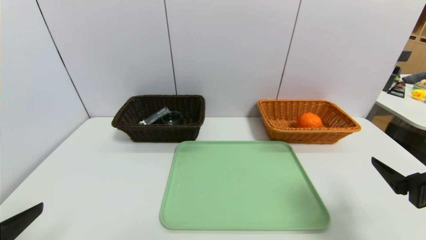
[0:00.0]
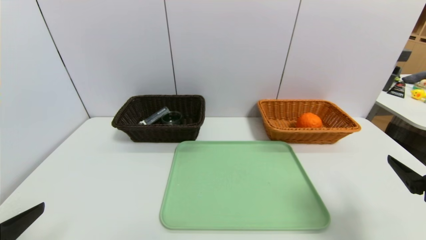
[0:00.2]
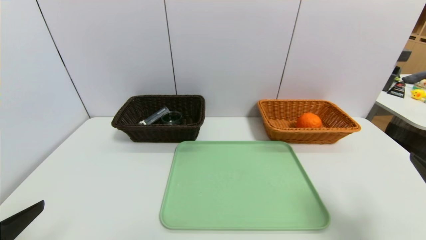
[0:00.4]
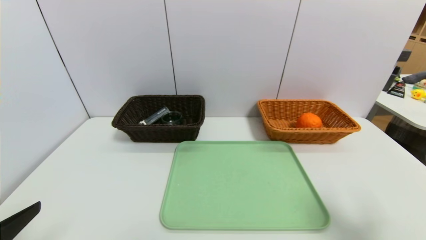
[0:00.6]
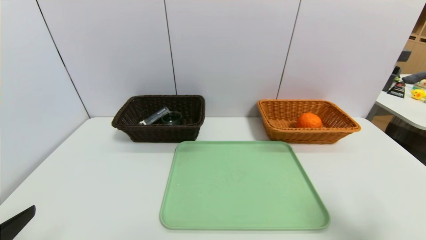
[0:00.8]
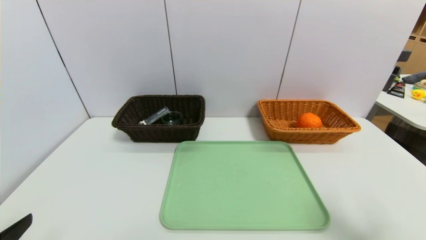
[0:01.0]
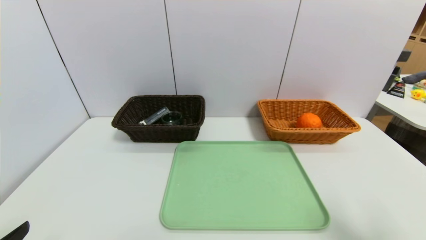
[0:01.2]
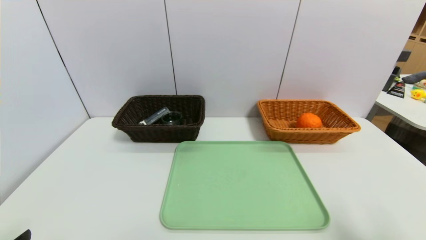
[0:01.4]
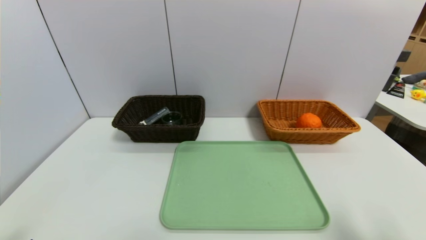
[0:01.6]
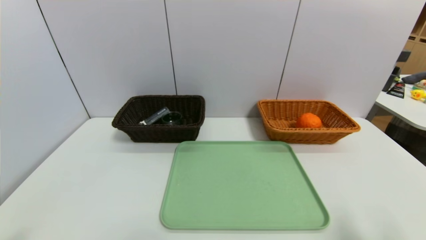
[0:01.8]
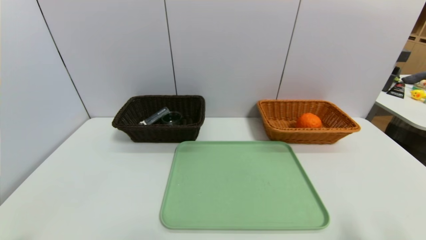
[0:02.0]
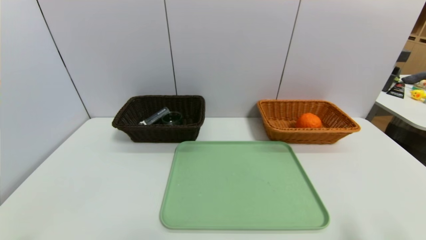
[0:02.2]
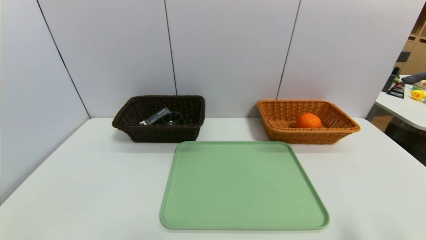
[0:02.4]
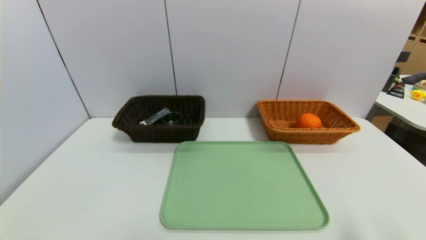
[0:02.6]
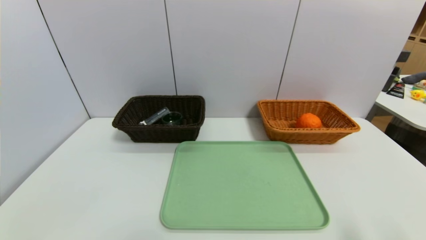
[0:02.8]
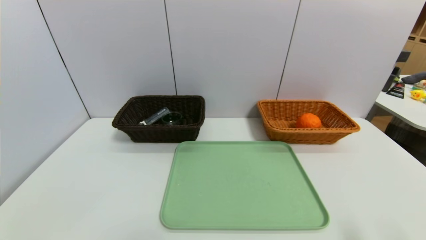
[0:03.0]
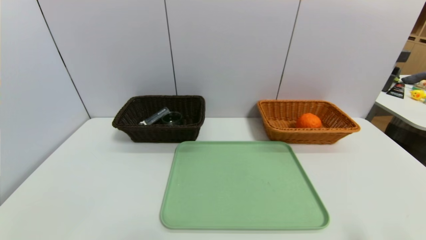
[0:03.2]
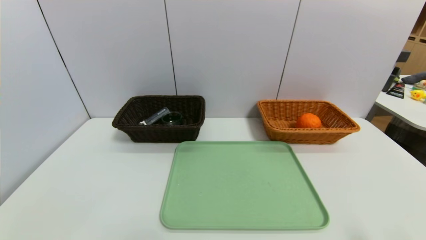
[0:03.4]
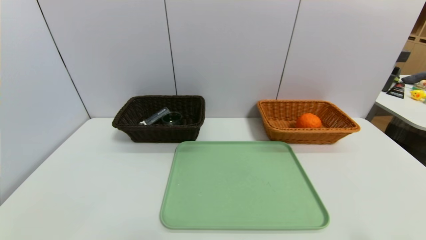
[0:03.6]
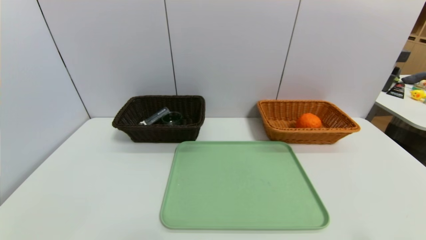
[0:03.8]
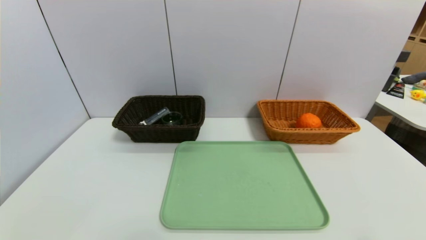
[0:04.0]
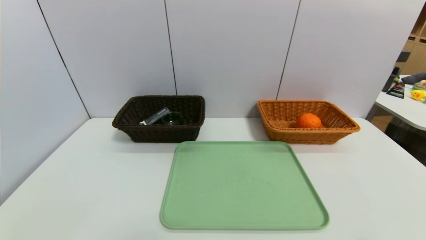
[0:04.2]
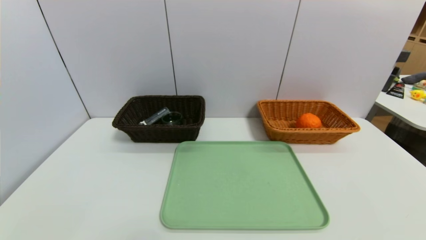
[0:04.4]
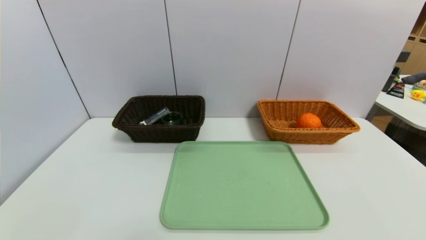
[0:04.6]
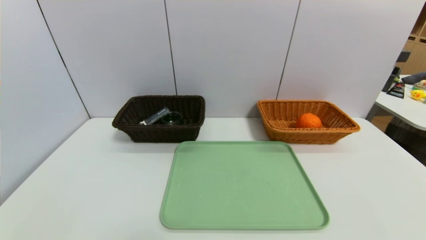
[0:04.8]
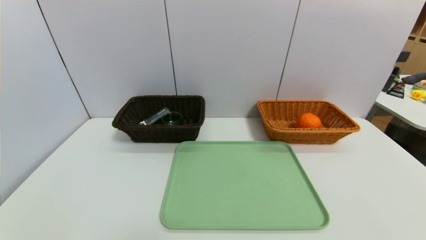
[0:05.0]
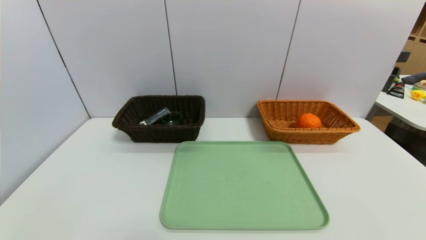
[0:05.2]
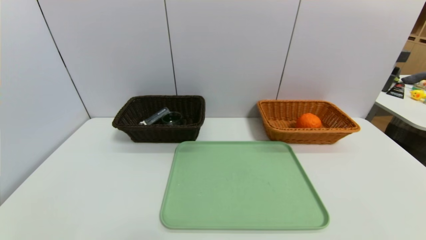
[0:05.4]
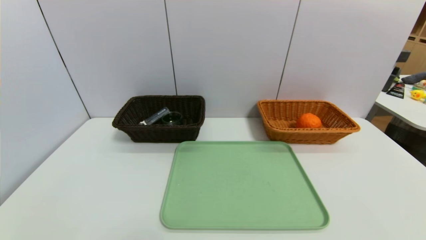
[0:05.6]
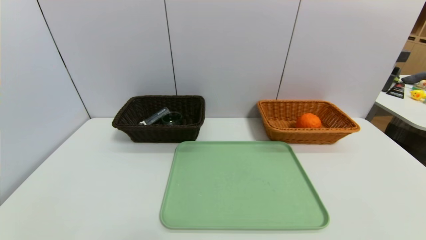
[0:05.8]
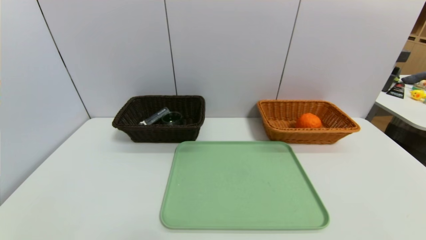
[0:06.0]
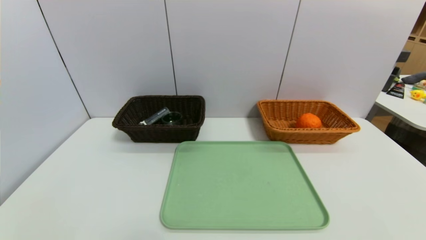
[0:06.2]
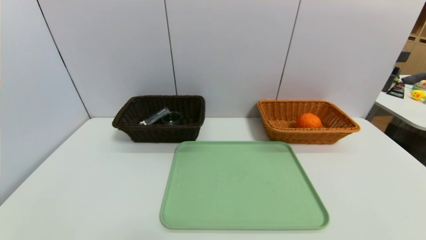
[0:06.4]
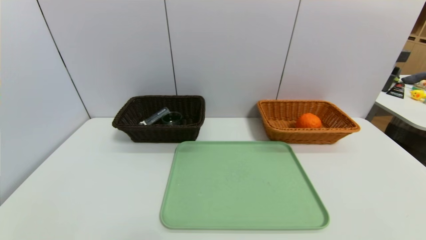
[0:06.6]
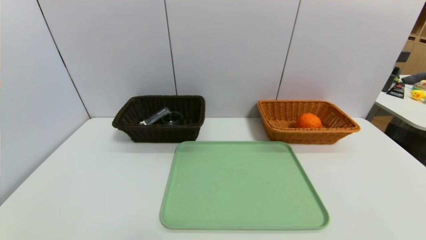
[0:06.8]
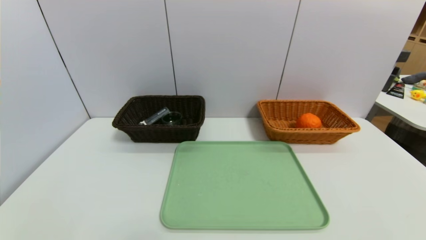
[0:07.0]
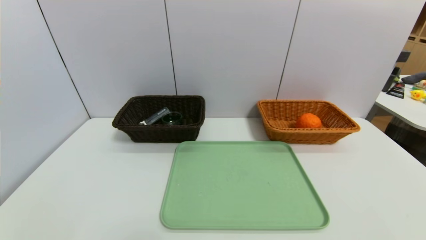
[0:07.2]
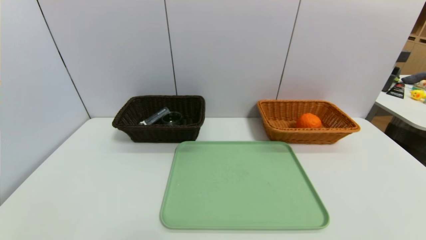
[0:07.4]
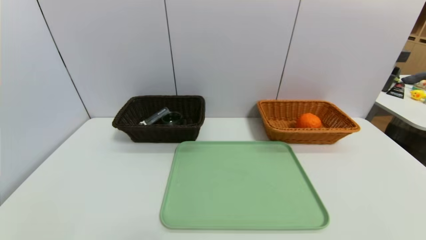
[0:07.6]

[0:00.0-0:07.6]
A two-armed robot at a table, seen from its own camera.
Task of the whole recording: place the food in the right basket with the right gripper, and place the non food items in the left basket with the left gripper.
0:00.0 to 0:01.6: The left gripper shifts by about 5 cm; the right gripper moves backward, some 5 cm.

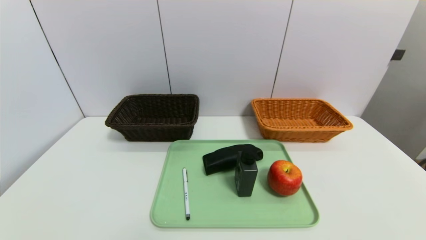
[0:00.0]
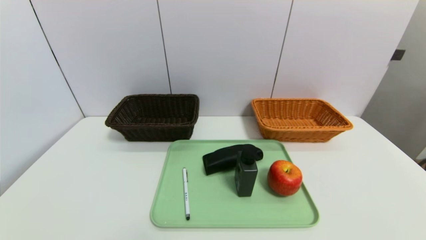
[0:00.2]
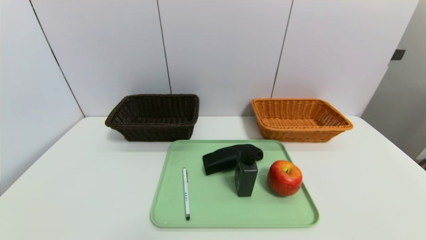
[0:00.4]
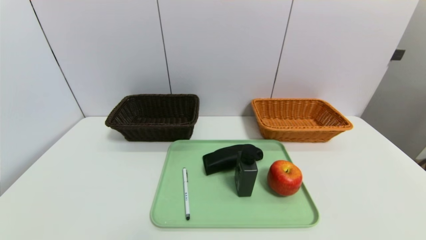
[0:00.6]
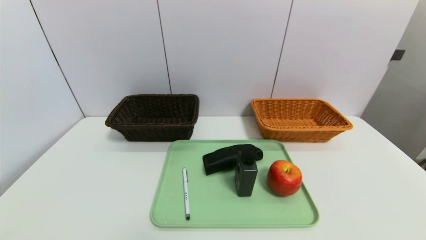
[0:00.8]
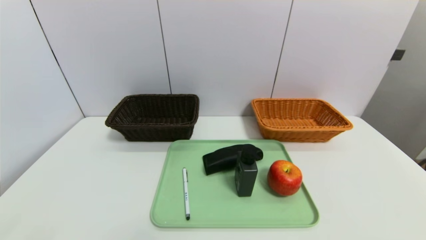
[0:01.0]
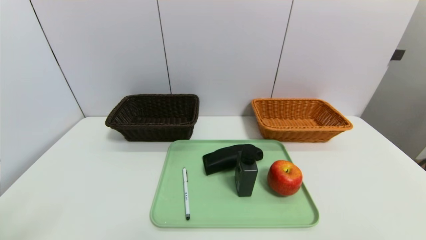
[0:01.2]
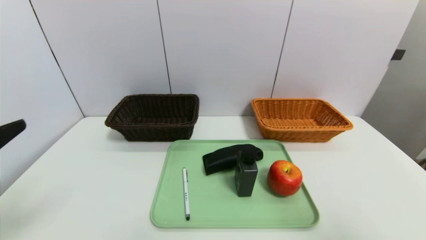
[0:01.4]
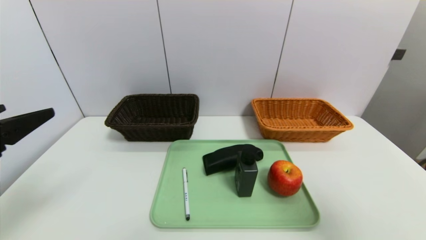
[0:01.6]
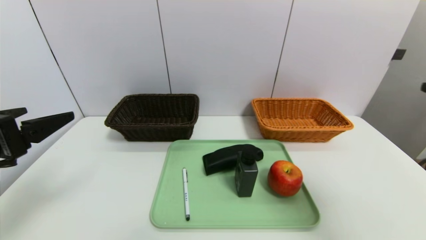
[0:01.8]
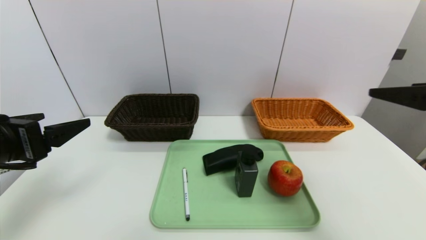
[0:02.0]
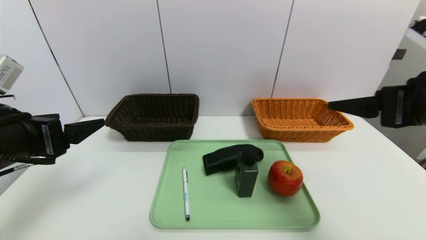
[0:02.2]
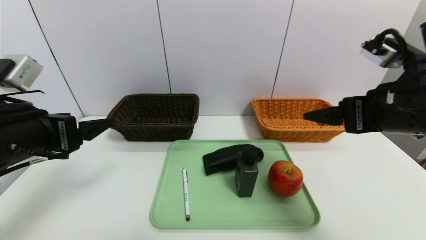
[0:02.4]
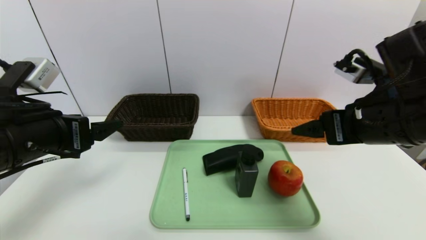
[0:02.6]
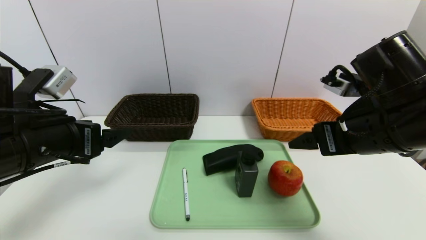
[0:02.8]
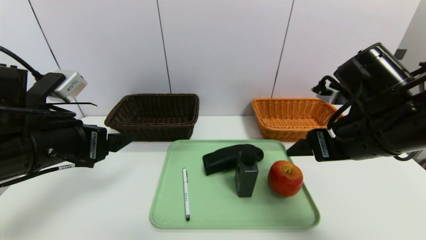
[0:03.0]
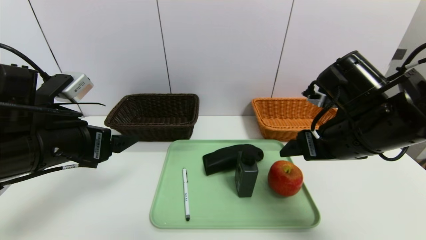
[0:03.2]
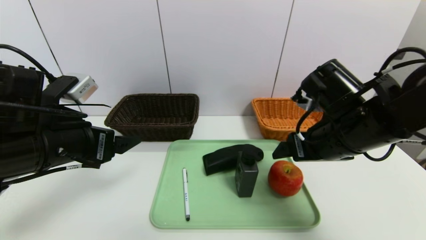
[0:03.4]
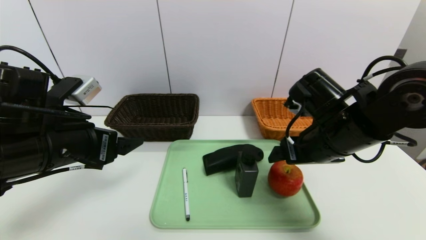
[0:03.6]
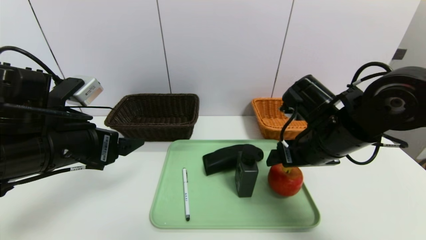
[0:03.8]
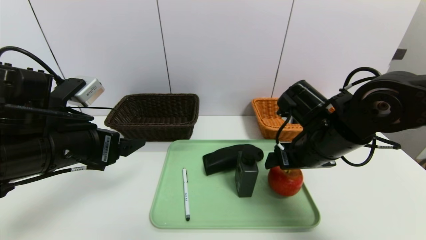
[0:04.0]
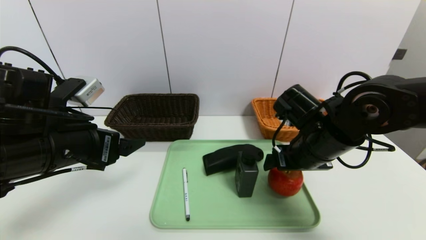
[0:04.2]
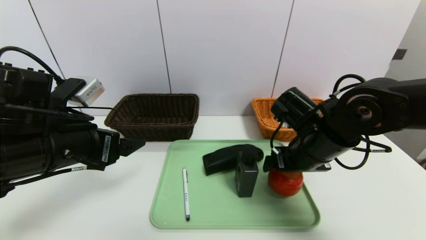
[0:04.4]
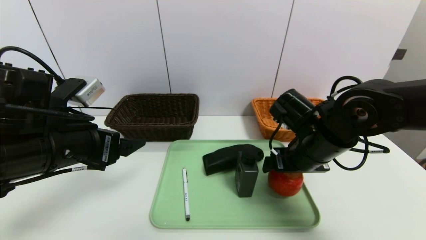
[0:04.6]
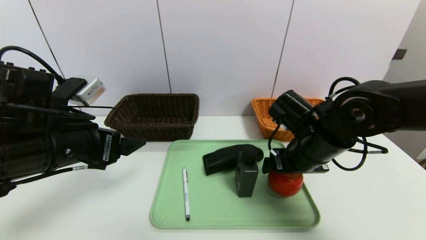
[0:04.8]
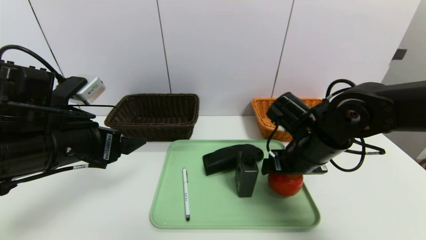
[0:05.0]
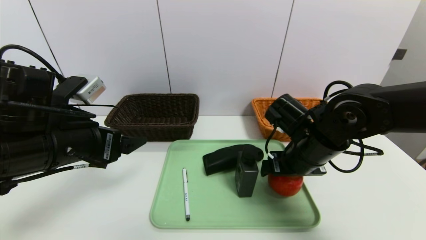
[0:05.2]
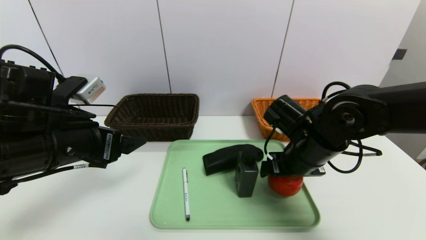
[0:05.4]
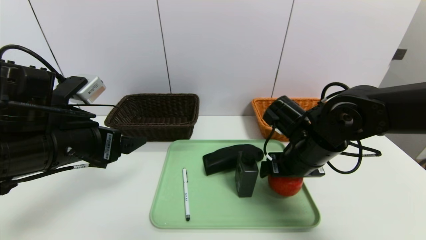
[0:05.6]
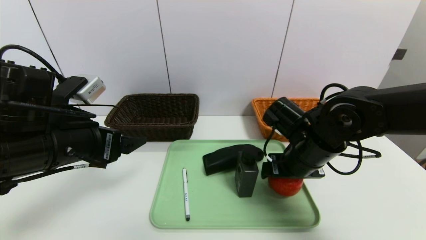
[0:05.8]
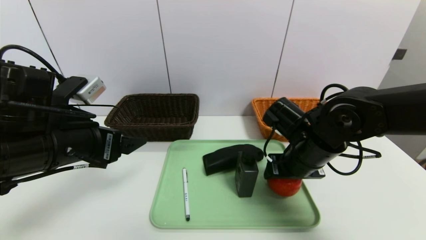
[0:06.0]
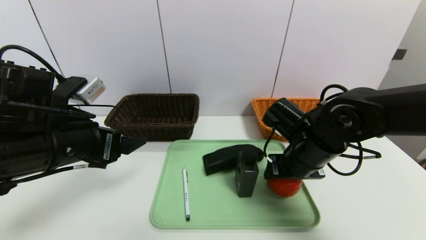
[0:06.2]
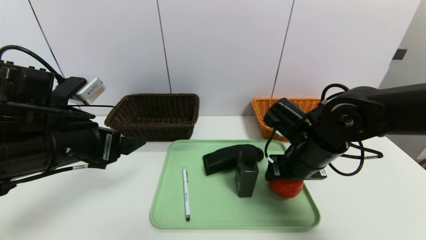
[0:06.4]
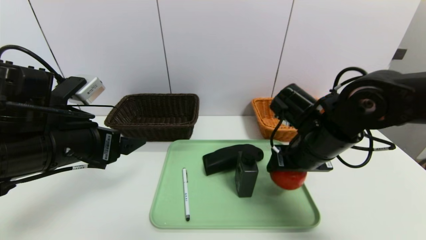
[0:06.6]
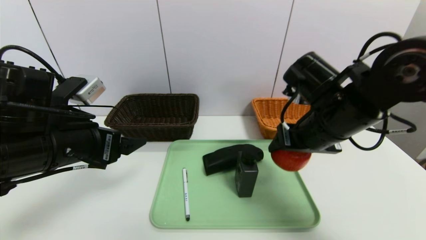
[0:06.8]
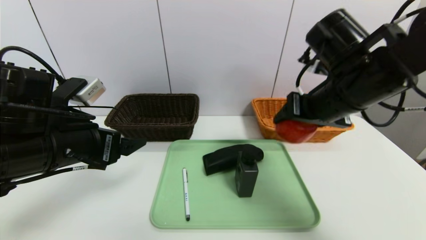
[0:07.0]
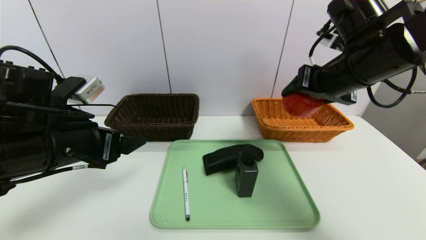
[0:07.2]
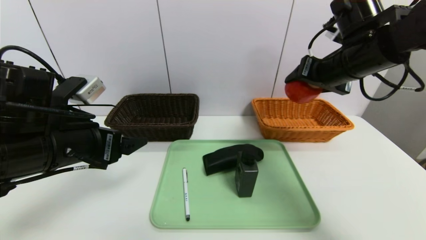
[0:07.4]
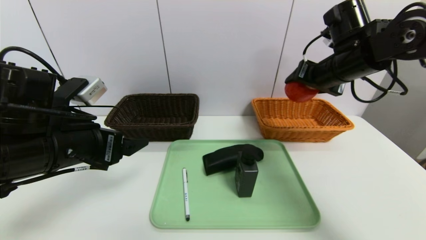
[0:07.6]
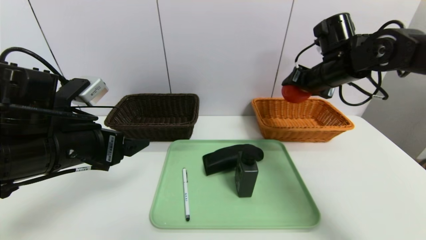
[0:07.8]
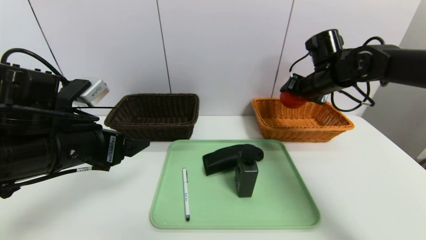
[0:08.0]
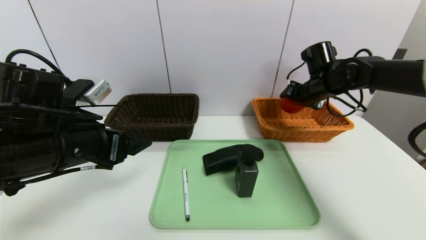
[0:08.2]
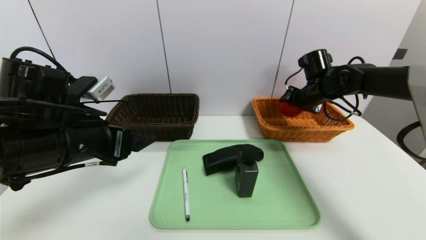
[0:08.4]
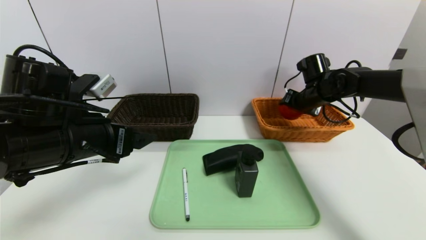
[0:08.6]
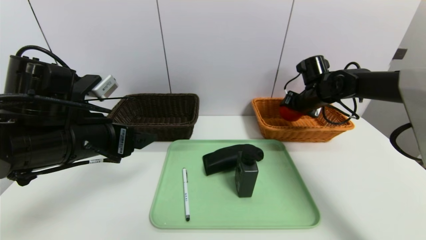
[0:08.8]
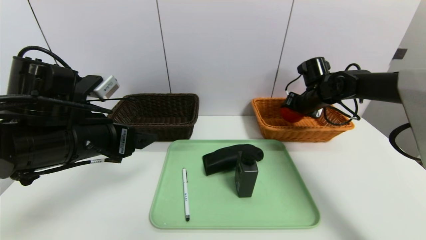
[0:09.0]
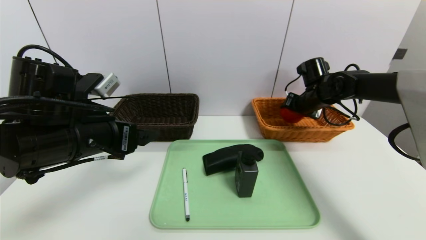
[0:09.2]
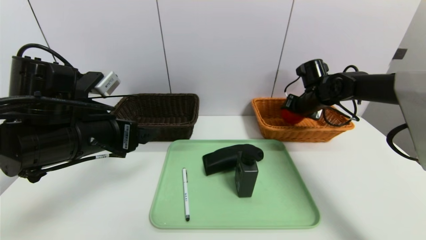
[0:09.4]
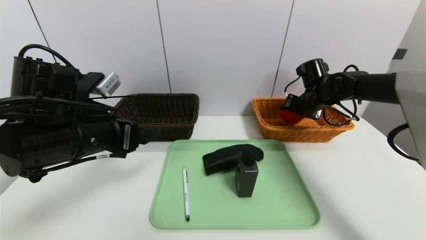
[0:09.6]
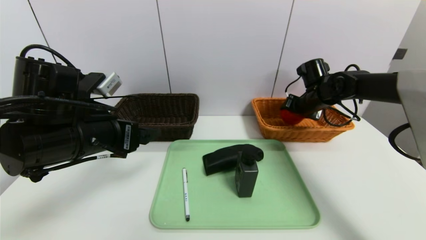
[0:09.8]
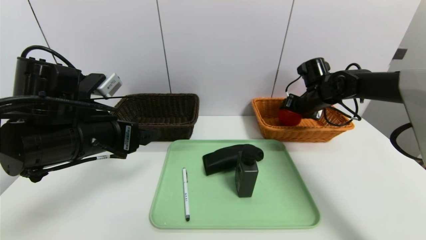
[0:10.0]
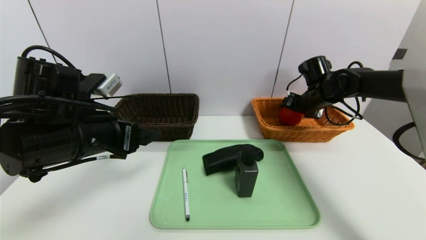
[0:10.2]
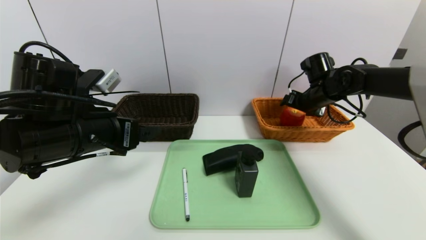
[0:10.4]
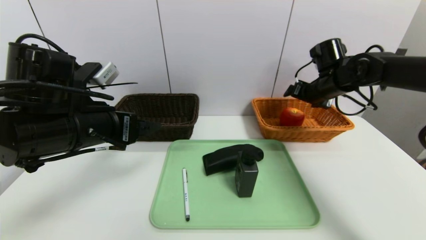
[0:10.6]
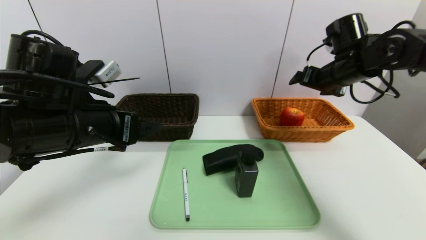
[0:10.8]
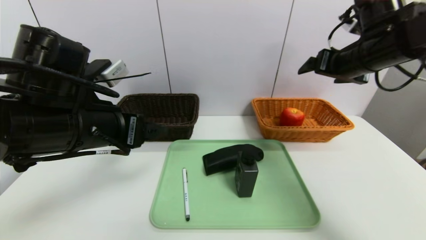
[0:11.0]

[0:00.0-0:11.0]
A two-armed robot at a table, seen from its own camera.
Task of the whole recording: place the food in the right basket with the right gripper, and place the non food items in the left basket with the left gripper.
Step, 0:00.0 to 0:10.6: Grasp the apple and put it in the right basket.
0:00.0 to 0:01.6: The left gripper moves upward and forward, about 25 cm. Meanwhile the right gripper travels upward by approximately 25 cm.
0:01.6 to 0:03.2: The right gripper travels forward, to the left and downward by about 25 cm. The left gripper heads forward and to the right, covering about 10 cm.
0:03.2 to 0:04.8: The right gripper travels downward by approximately 5 cm.
0:04.8 to 0:06.2: The right gripper closes.
0:06.2 to 0:07.8: The right gripper goes roughly 20 cm upward, forward and to the right.
0:07.8 to 0:09.4: The right gripper moves downward and forward, approximately 10 cm.
0:09.4 to 0:11.0: The right gripper is displaced upward and backward by some 20 cm, and opens its fingers.
